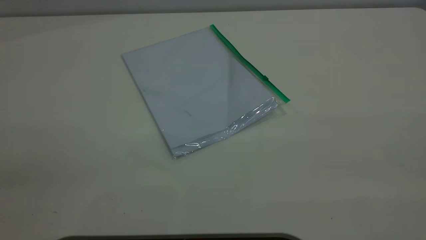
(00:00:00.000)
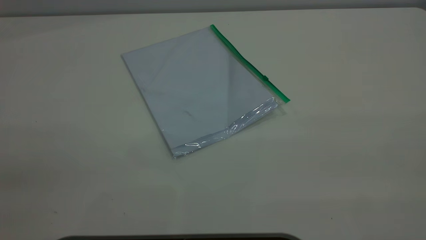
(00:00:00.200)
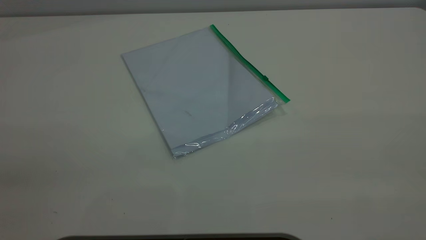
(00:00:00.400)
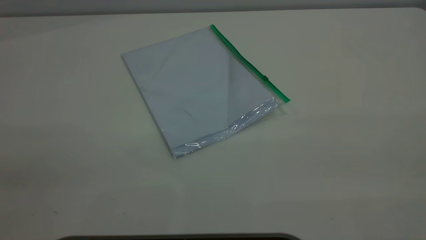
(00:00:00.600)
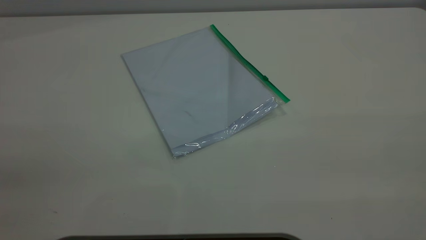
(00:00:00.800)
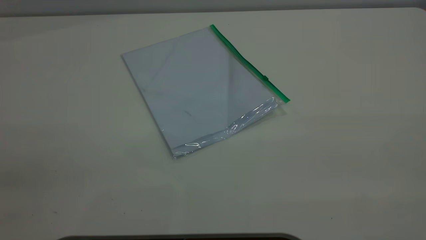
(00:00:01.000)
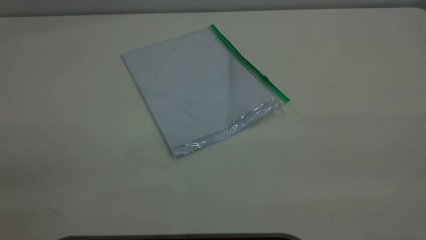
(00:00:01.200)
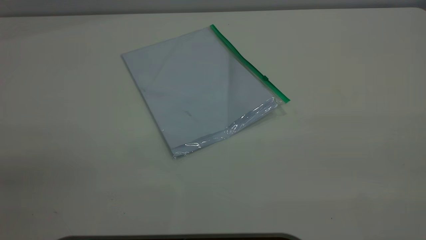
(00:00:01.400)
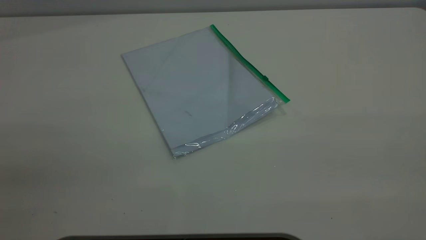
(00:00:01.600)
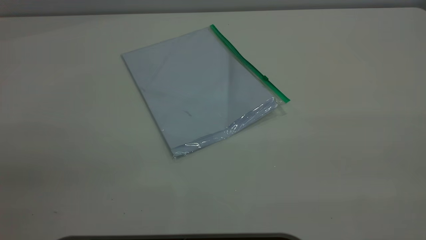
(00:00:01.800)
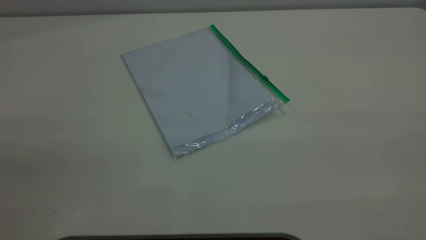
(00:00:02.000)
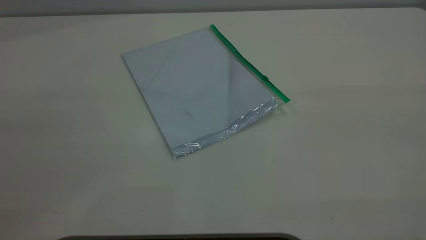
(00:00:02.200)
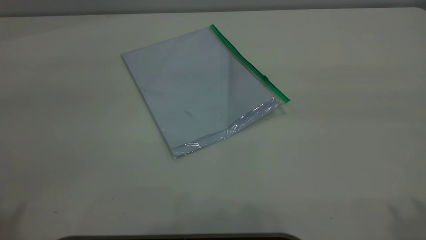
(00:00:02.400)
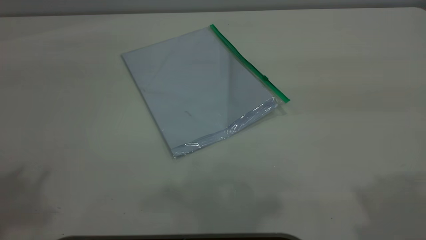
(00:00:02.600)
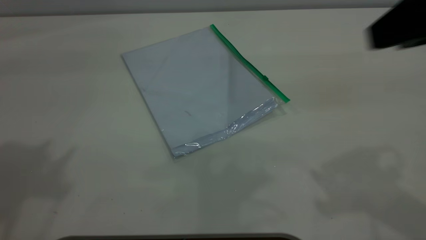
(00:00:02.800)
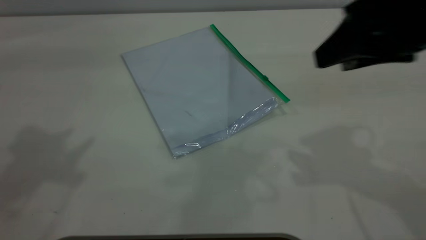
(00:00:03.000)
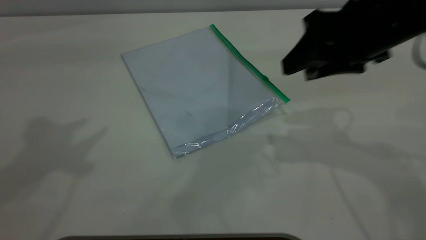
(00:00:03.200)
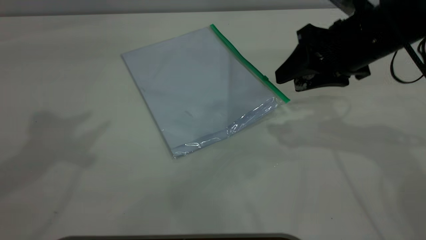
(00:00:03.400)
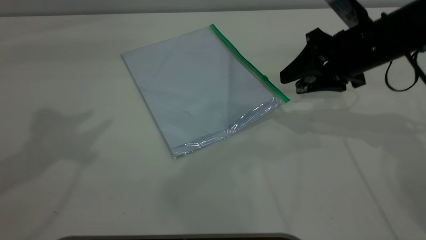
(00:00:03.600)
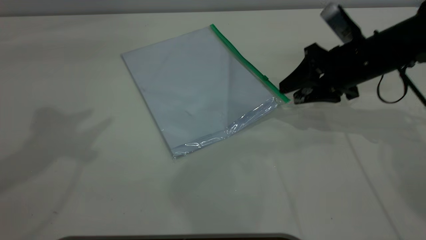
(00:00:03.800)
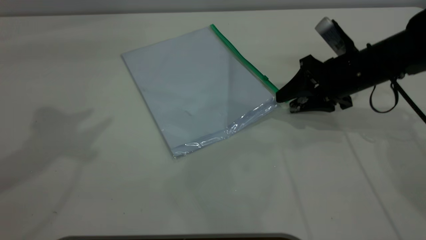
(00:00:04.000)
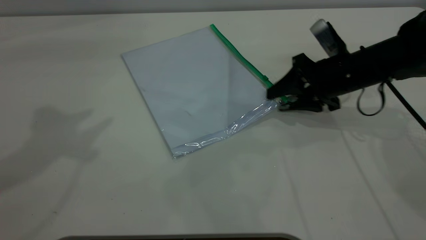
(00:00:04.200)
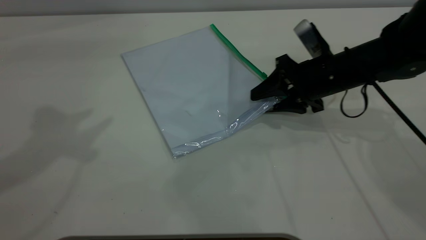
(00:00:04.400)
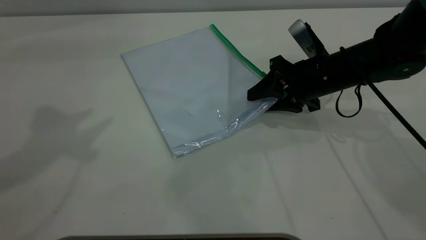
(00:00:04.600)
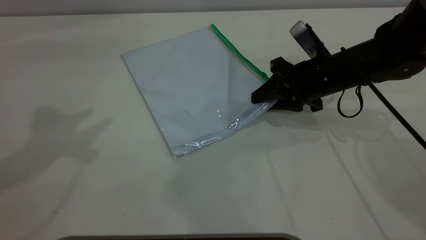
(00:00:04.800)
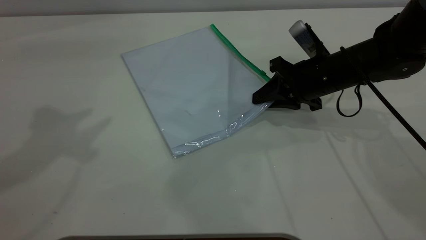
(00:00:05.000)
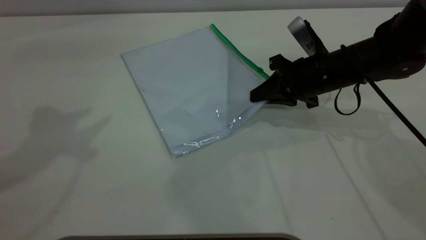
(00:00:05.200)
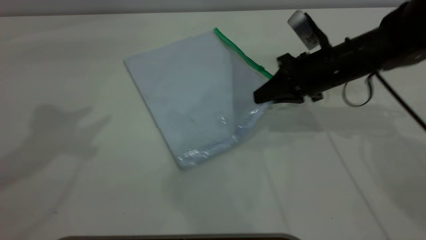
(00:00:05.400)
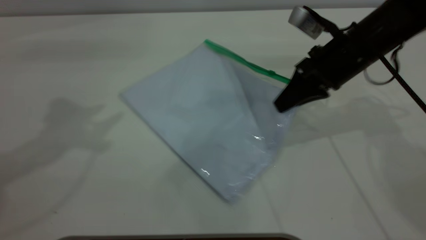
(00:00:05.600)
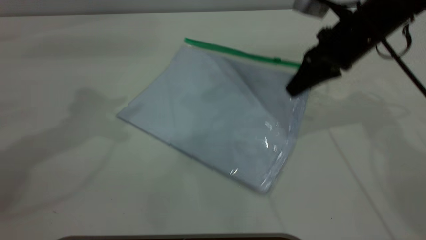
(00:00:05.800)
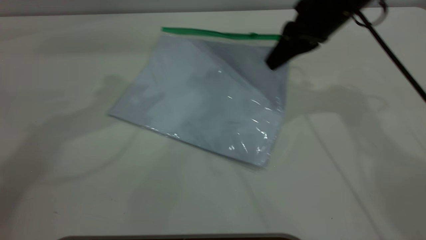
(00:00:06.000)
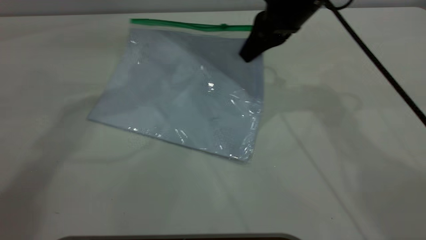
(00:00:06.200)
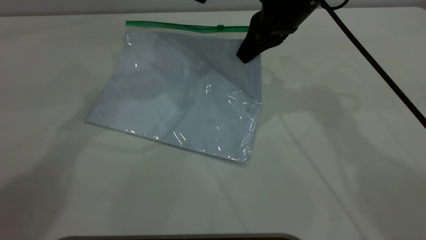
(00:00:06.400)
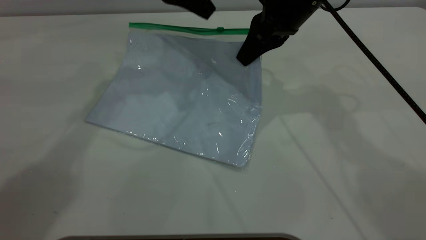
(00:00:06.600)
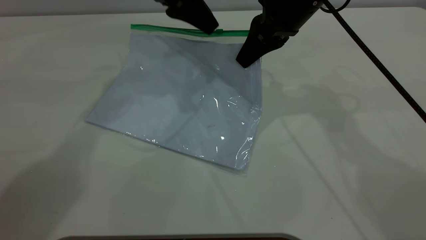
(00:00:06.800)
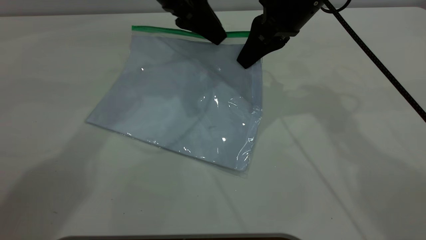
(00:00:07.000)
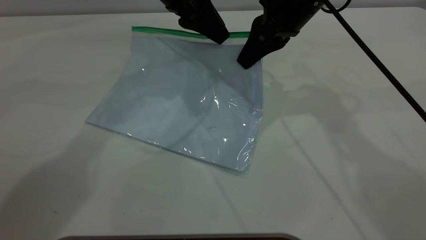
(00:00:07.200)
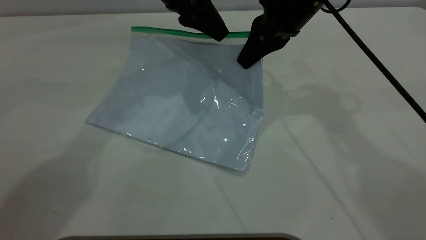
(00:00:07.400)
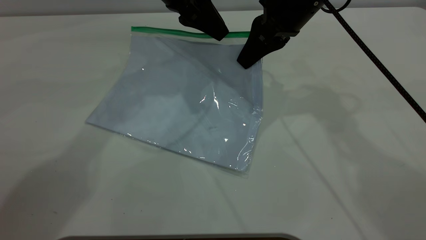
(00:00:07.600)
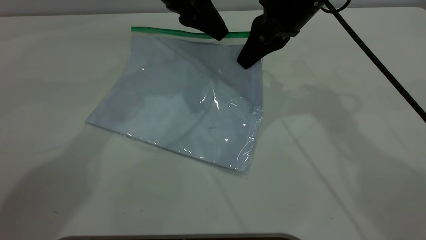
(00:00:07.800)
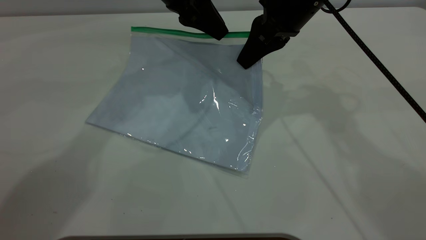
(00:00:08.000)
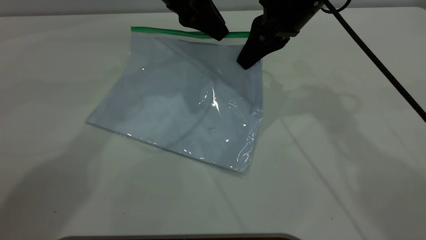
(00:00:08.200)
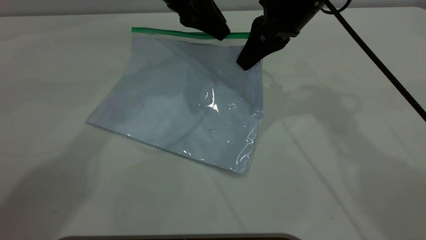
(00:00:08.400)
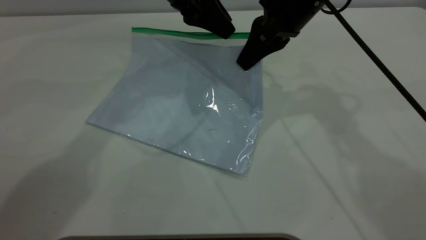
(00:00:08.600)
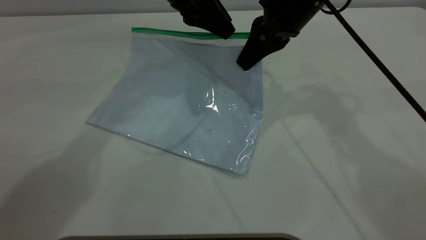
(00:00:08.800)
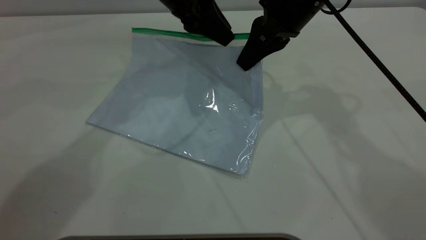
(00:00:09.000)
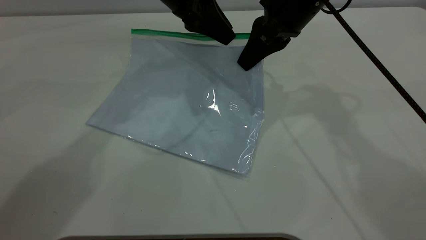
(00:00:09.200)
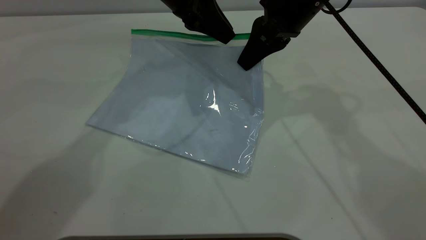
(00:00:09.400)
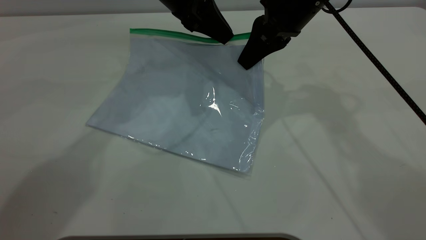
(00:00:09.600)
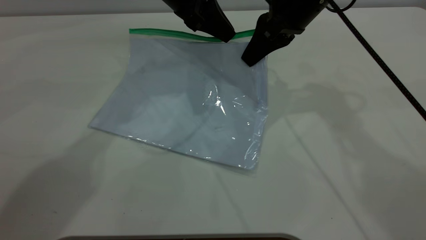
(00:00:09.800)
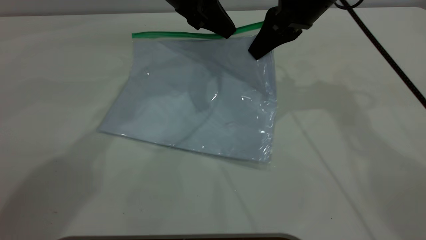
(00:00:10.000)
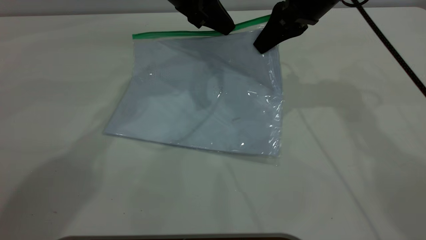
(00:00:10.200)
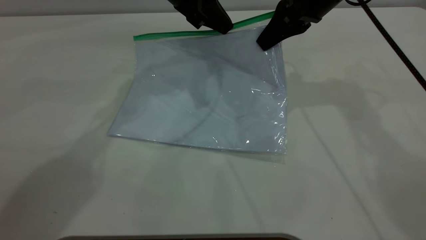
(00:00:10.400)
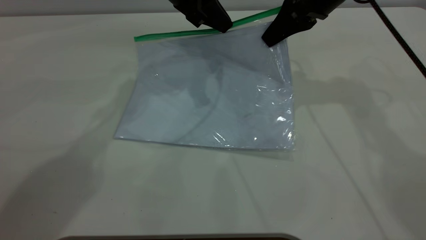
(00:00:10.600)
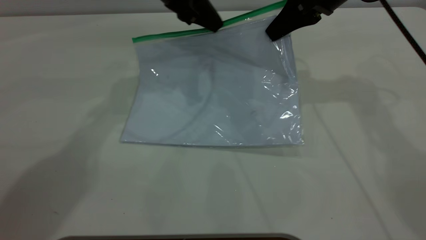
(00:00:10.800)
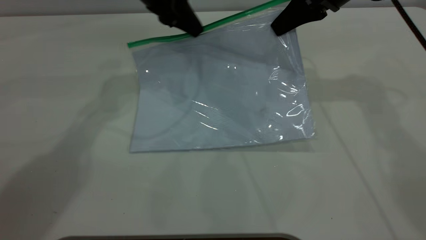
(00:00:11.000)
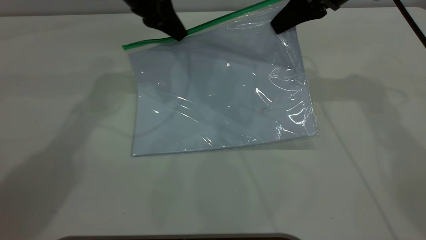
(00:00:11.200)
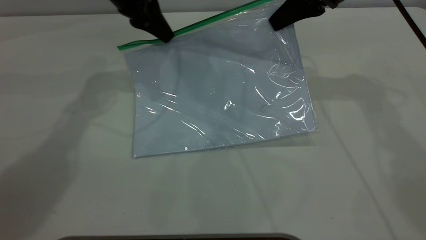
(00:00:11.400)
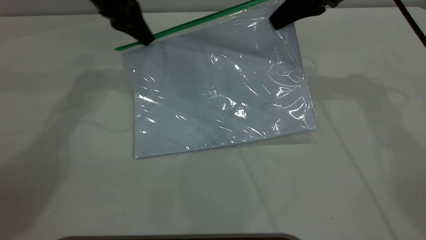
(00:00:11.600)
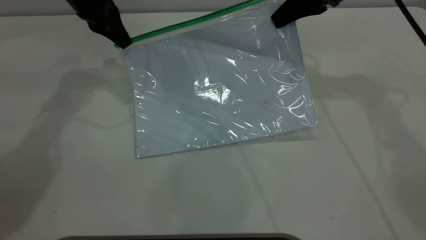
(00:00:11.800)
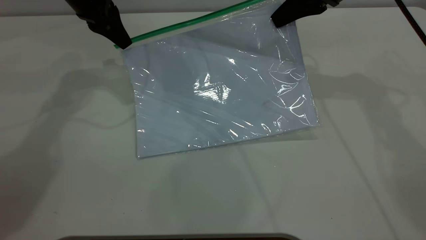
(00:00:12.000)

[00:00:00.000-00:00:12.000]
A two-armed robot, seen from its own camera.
Step, 00:00:00.000 to 00:00:05.400: Pick up the transparent plastic bag with the right gripper.
00:00:00.000 to 00:00:01.600: Both grippers stay put.
00:00:01.600 to 00:00:03.000: The right gripper heads forward and downward, covering approximately 30 cm.
00:00:03.000 to 00:00:04.400: The right gripper travels downward and forward by roughly 20 cm.
00:00:04.400 to 00:00:06.000: The right gripper shifts approximately 10 cm upward, and closes, while the left gripper travels forward, to the right and downward by some 15 cm.
00:00:06.000 to 00:00:07.600: The left gripper heads to the right, downward and forward, covering about 15 cm, and closes its fingers.
00:00:07.600 to 00:00:09.000: Both grippers stay put.
00:00:09.000 to 00:00:10.400: The left gripper closes up, while the right gripper ends up about 5 cm from where it was.
00:00:10.400 to 00:00:12.000: The left gripper travels to the left by some 15 cm.

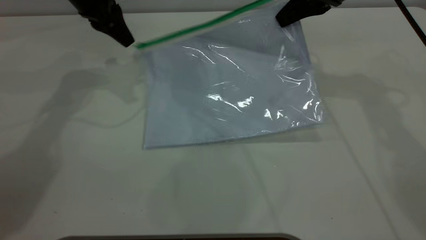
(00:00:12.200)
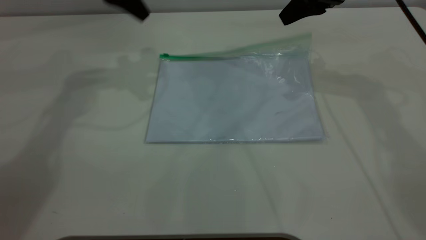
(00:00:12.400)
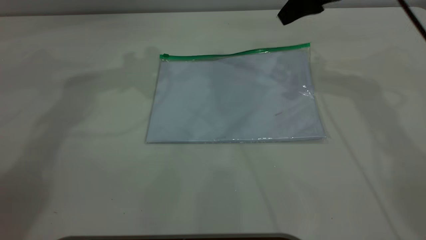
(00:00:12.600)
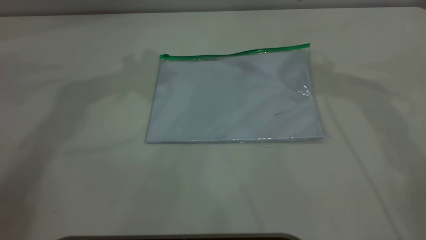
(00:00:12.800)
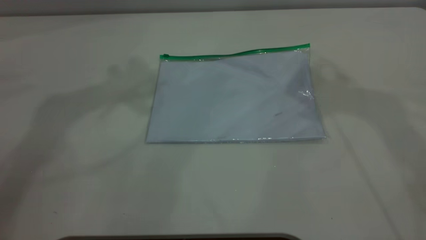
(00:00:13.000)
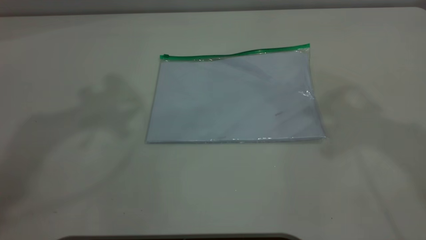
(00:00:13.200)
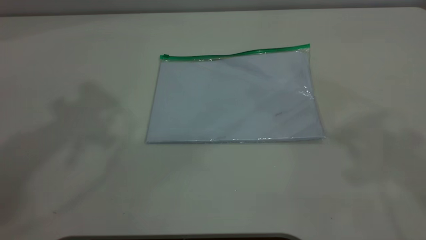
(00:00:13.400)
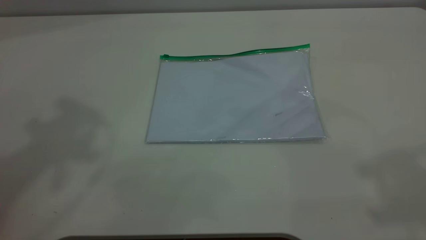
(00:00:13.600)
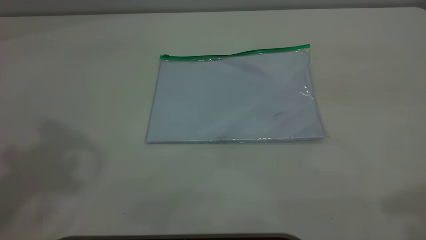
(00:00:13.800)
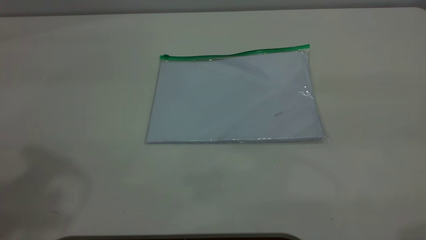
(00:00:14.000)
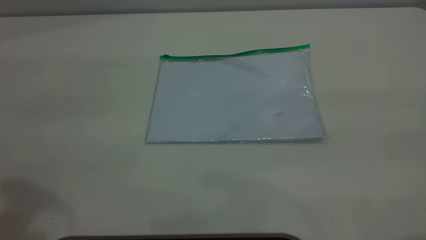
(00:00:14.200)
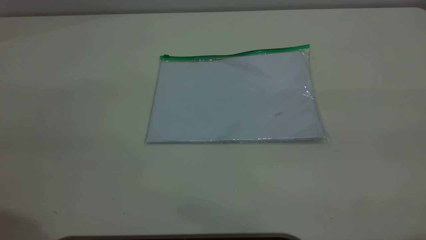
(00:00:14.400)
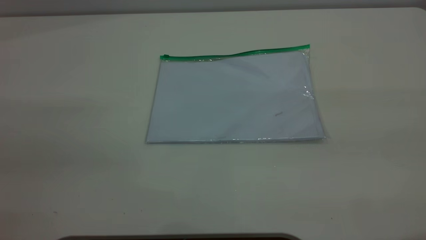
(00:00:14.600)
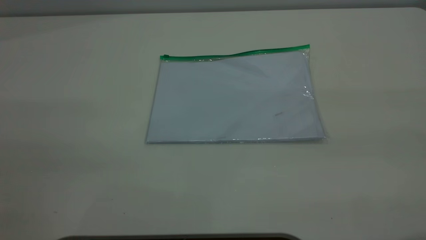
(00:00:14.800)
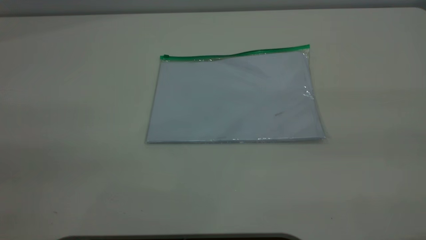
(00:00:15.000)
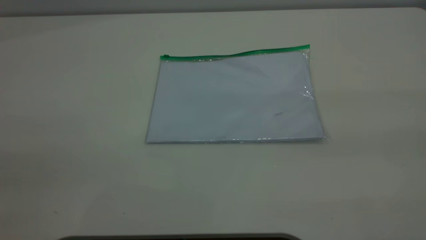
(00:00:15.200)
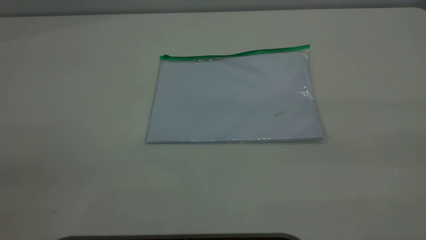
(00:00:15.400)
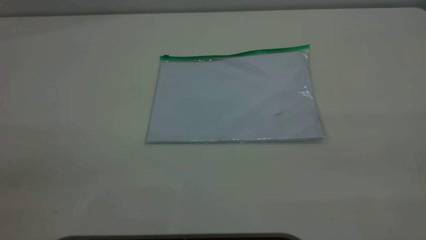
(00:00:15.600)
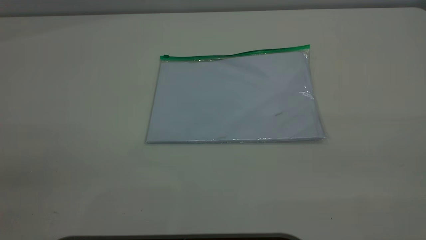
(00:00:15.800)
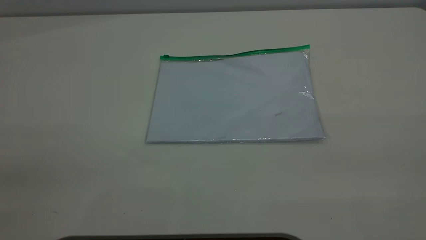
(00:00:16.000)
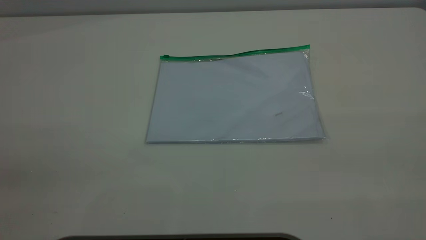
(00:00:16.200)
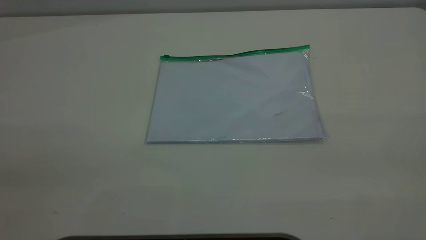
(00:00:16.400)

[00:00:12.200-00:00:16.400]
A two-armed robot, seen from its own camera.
Step, 00:00:12.200 to 00:00:12.400: Place the transparent plastic bag.
00:00:12.200 to 00:00:13.600: The left gripper moves upward and backward, approximately 35 cm, and opens its fingers, while the right gripper moves backward and upward, approximately 40 cm, and opens up.
